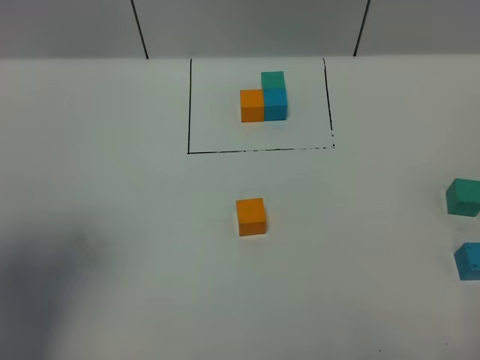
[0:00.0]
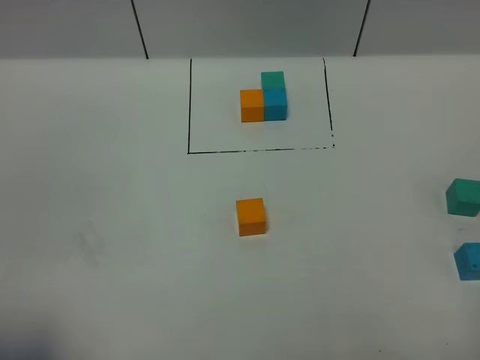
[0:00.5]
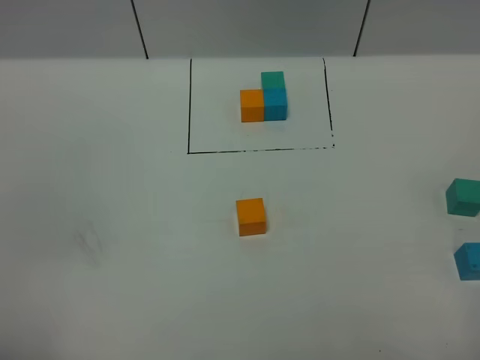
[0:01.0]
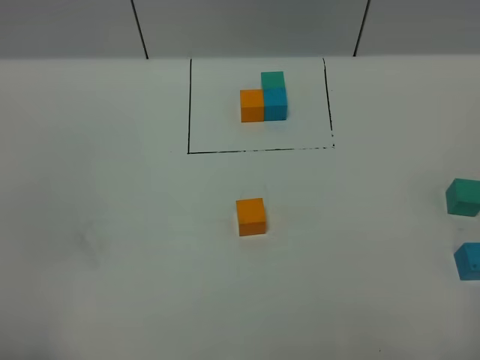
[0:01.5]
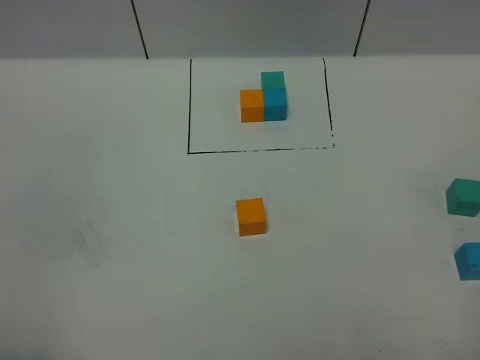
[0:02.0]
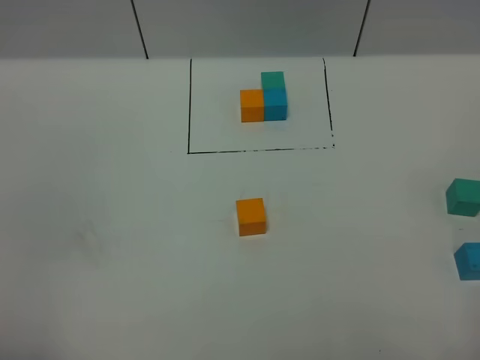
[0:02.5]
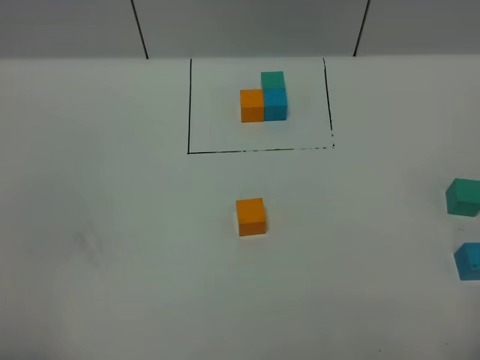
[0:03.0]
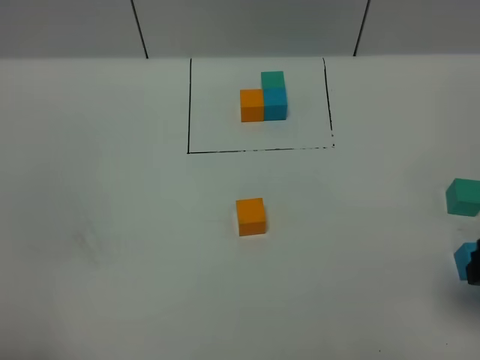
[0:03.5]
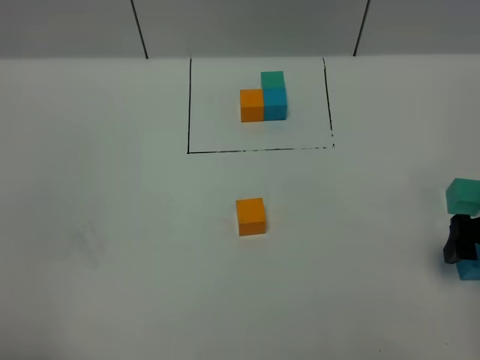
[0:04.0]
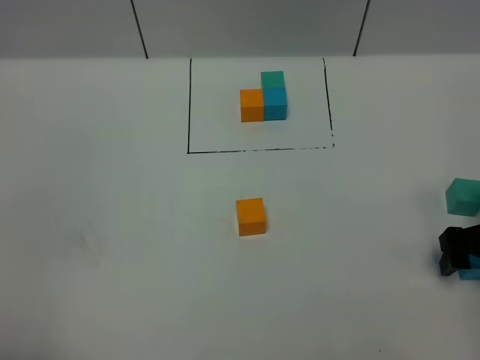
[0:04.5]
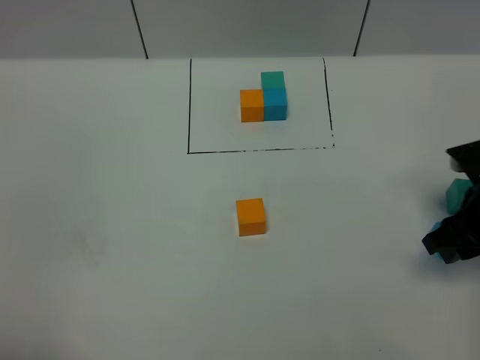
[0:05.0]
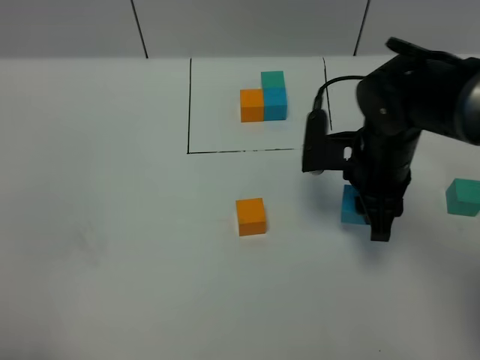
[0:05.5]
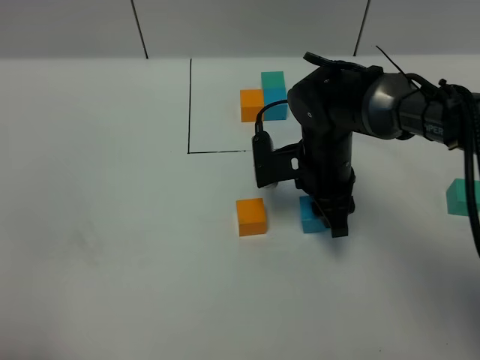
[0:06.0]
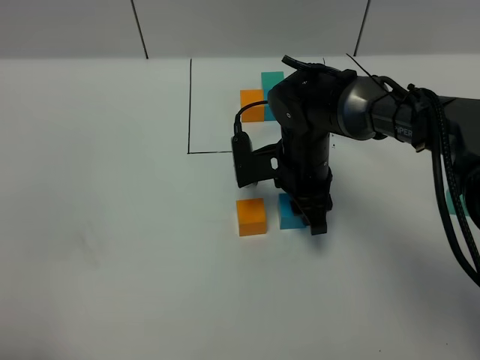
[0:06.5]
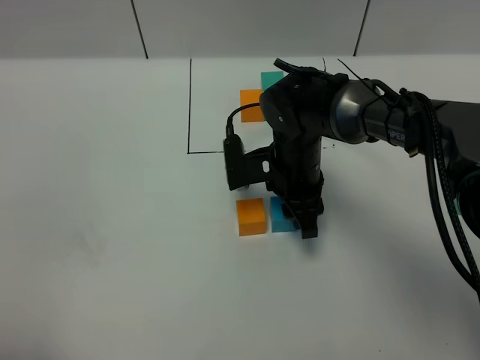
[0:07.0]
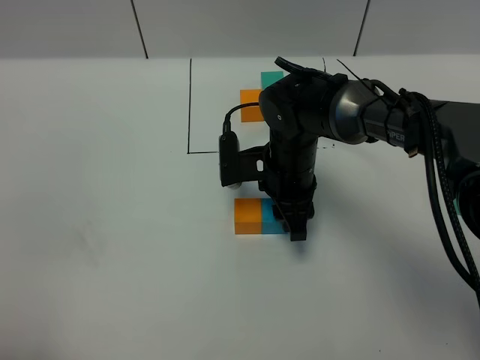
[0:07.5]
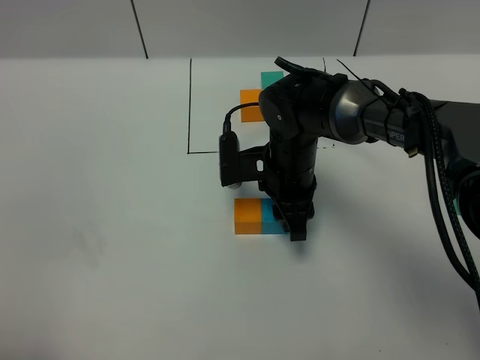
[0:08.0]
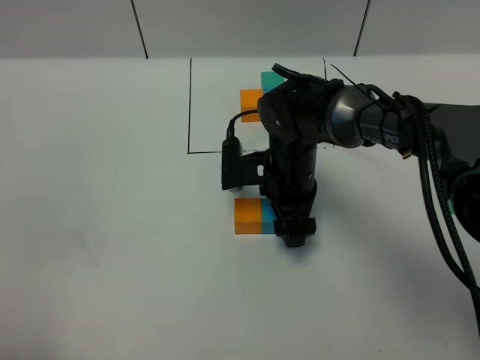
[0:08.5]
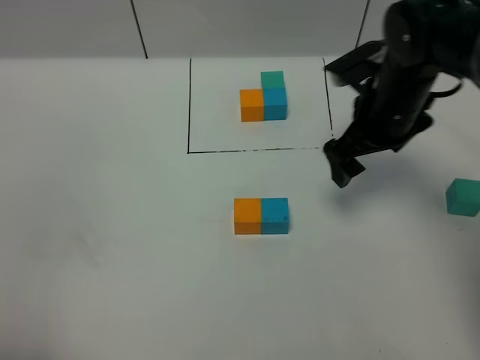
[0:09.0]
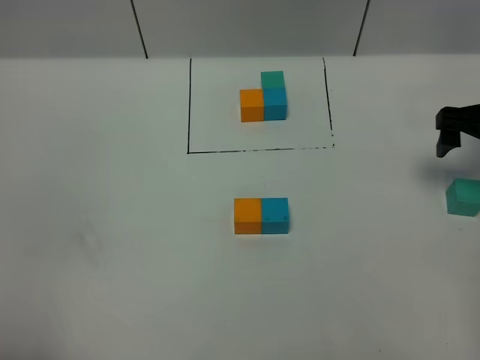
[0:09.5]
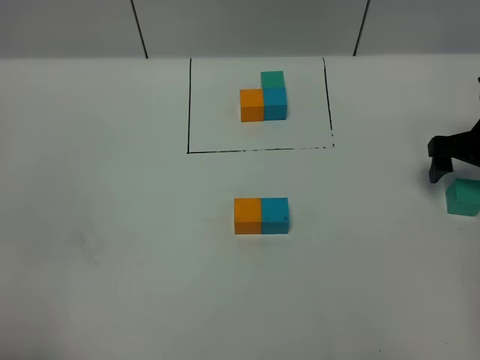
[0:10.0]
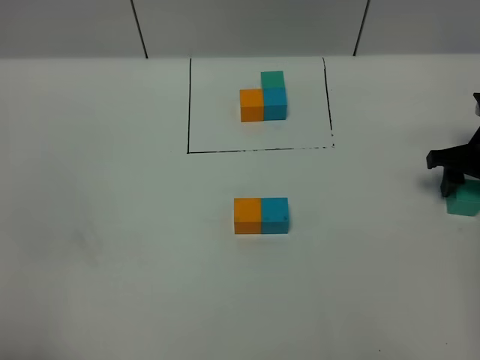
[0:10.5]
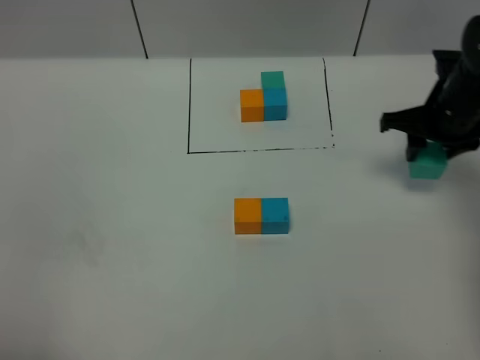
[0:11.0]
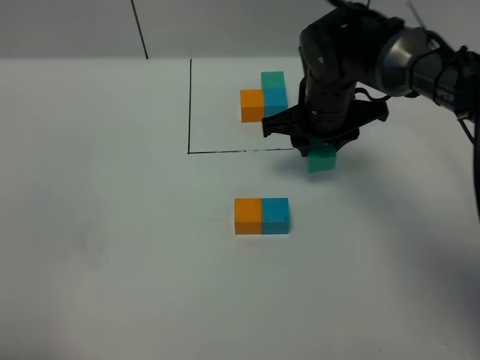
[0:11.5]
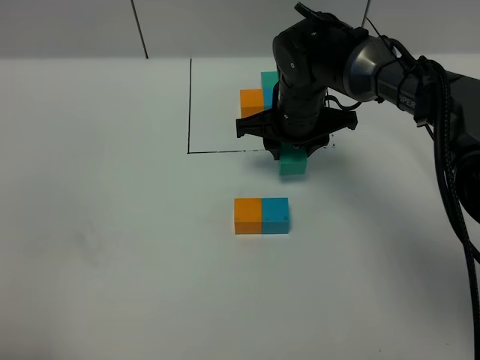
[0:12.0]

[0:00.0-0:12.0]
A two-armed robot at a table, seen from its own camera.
Task of the whole recording: According to the building block template in front, assemble the scattered blocks together.
Step, 0:00.0 to 0:08.5: Put the blue build block on the right of the orange build block.
0:00.0 to 0:02.0: The left gripper goes some 20 cm backward and downward, and closes its fingers.
0:02.0 to 0:04.0: The right gripper heads forward and downward, covering roughly 25 cm.
0:04.0 to 0:06.0: The right gripper is displaced to the left and forward by some 25 cm, and closes.
0:06.0 to 0:08.0: The grippers stay close to where they were, moving slightly.
0:08.0 to 0:10.0: The right gripper shifts some 30 cm to the right, and opens its fingers.
0:10.0 to 0:12.0: The right gripper goes about 25 cm to the left, and closes up.

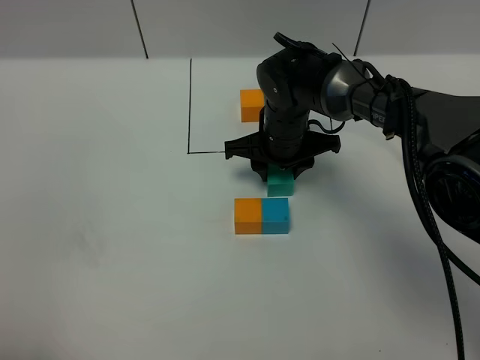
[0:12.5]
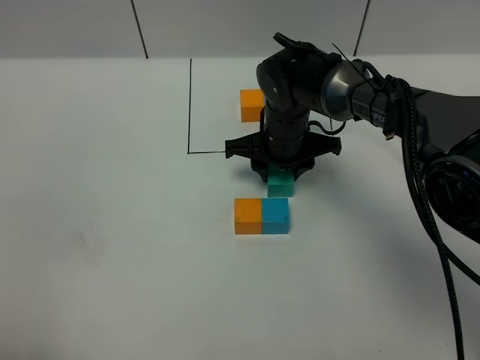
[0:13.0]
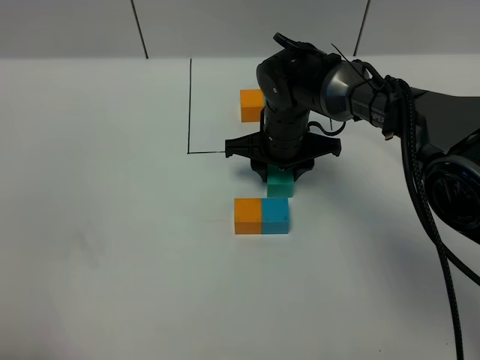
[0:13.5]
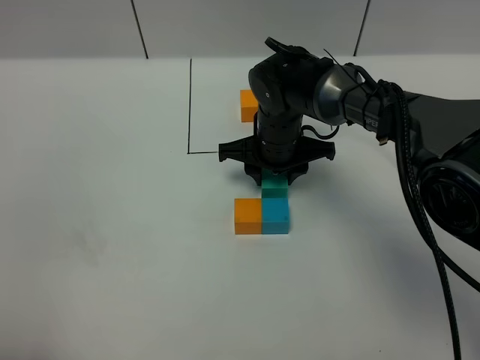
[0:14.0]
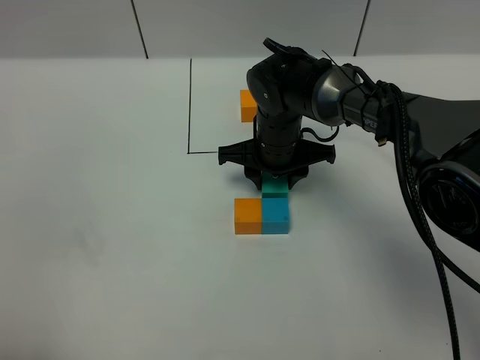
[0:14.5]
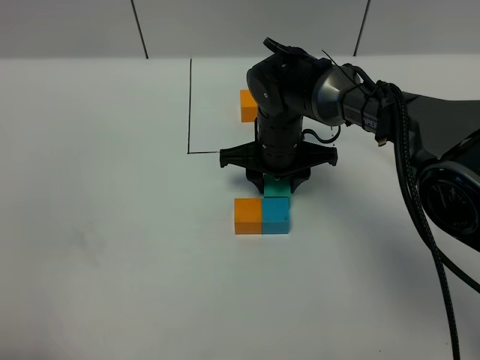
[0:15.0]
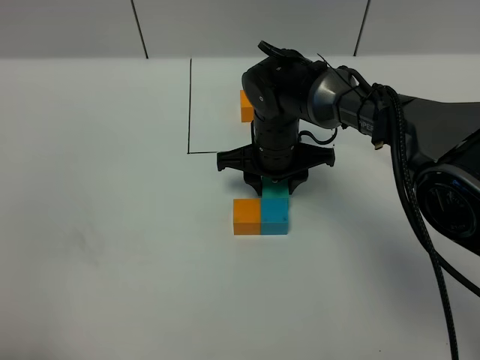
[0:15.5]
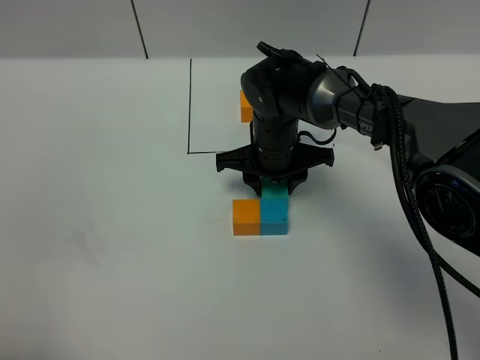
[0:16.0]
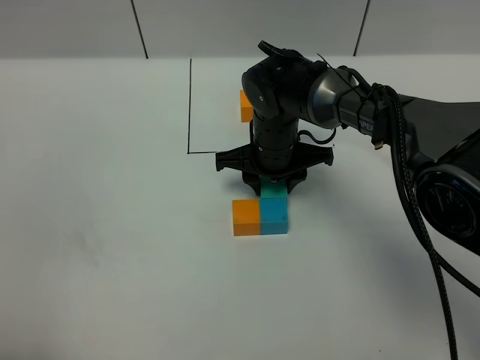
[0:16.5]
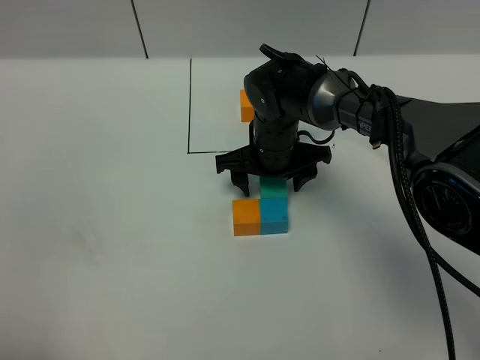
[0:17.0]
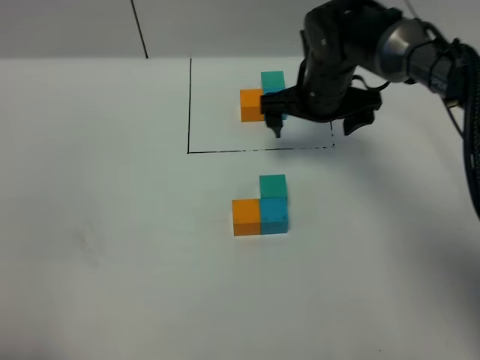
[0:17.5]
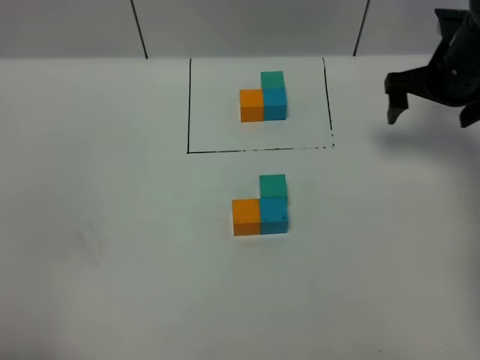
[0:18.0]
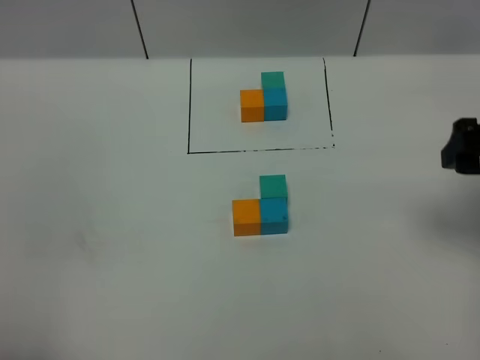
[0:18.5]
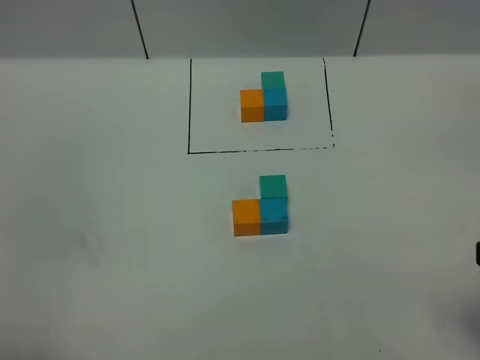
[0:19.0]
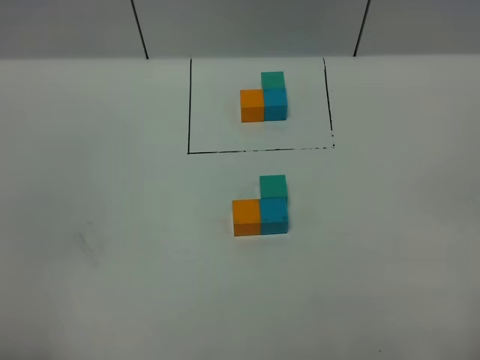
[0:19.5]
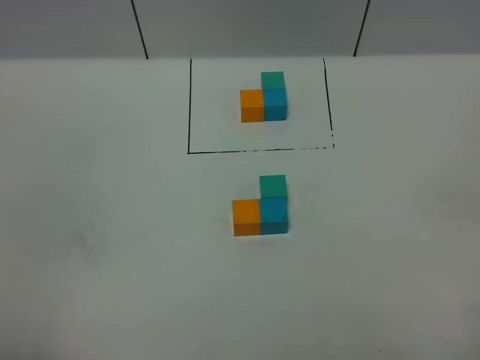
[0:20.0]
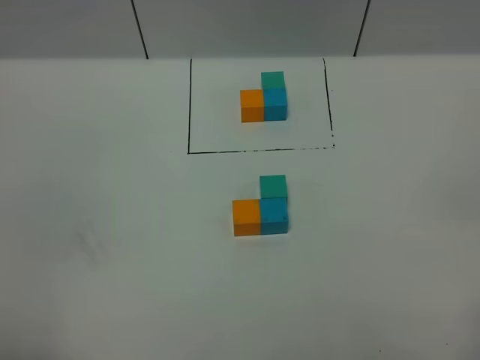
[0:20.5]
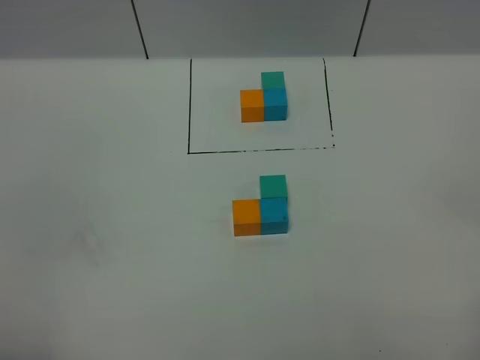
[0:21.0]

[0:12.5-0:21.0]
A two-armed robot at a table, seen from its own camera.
Task of the whole recording: According to the building block template in front, assemble the scattered blocks together.
Step, 0:12.5 to 0:16.5: Put the green build block on the front of the blue build block.
0:12.5 to 0:14.5: The grippers make only small movements.
0:14.5 to 0:16.5: Neither gripper changes place.
0:16.5 to 0:19.0: The right gripper shifts some 40 cm backward, to the right and upward, and opens its fingers.
